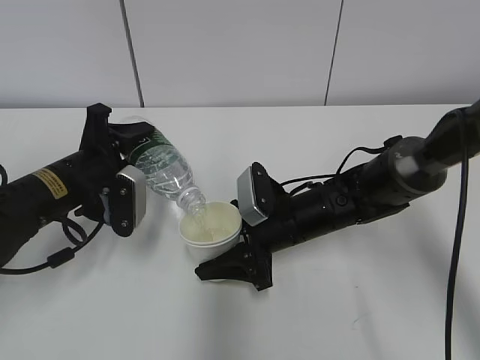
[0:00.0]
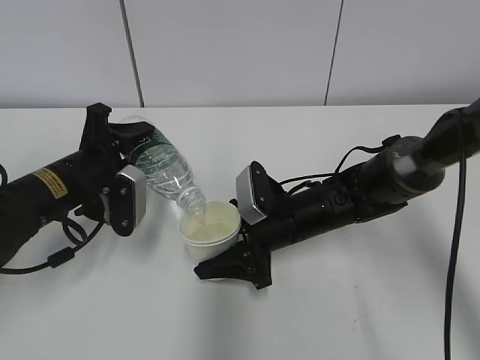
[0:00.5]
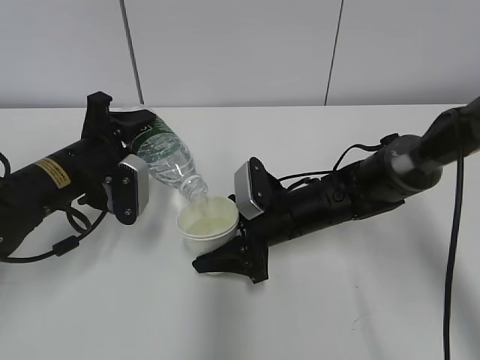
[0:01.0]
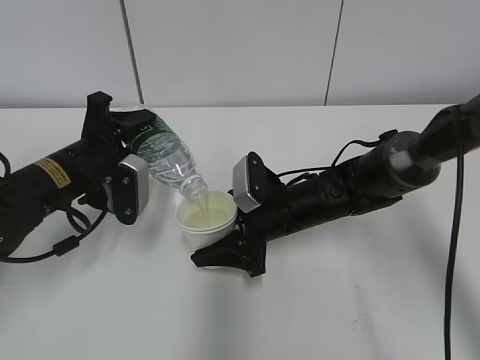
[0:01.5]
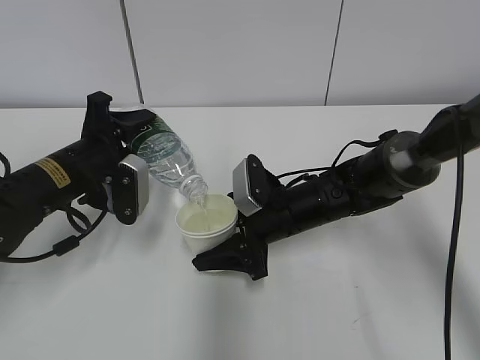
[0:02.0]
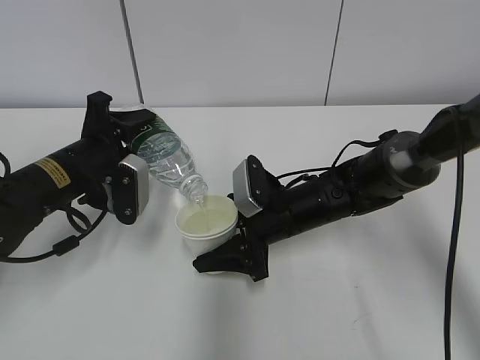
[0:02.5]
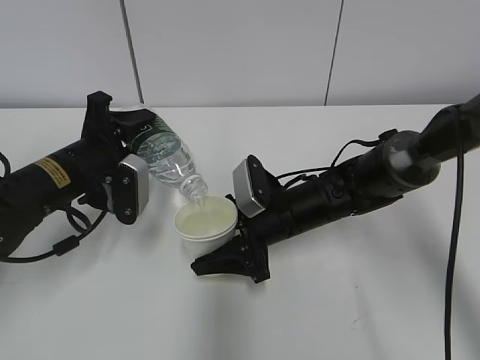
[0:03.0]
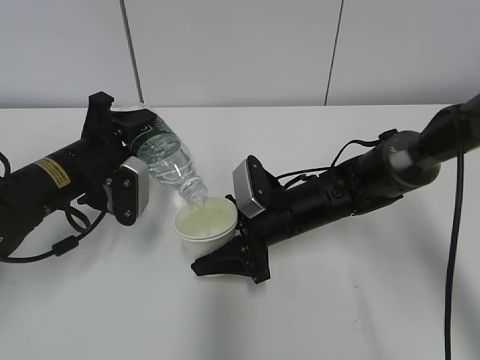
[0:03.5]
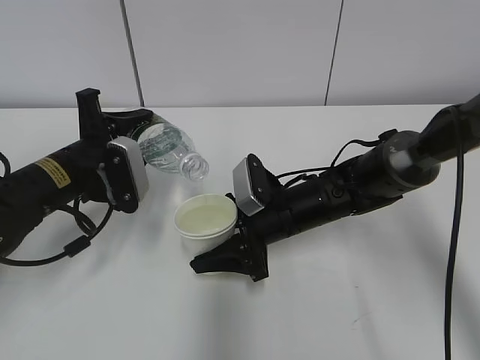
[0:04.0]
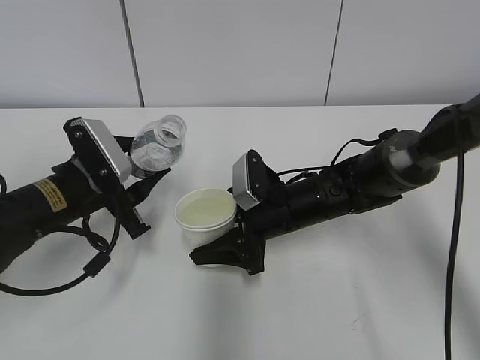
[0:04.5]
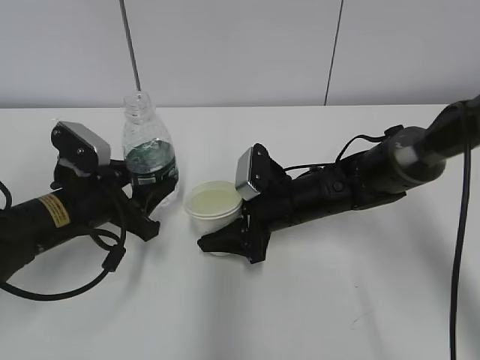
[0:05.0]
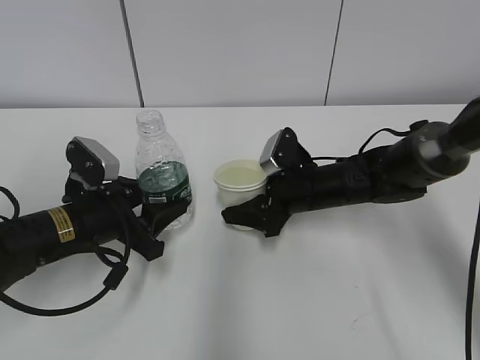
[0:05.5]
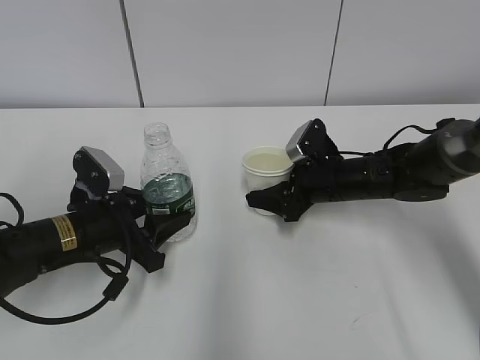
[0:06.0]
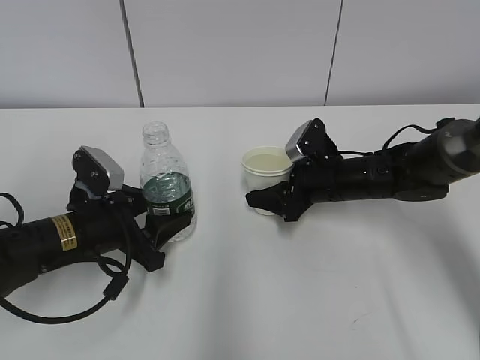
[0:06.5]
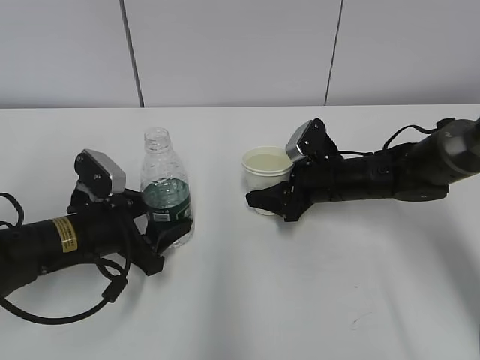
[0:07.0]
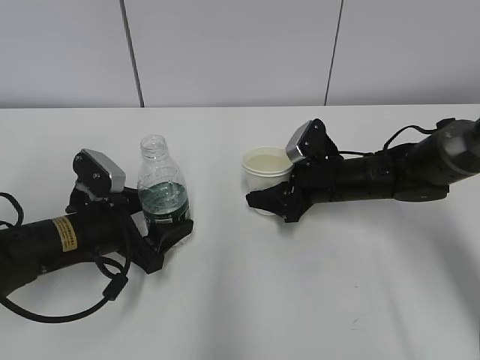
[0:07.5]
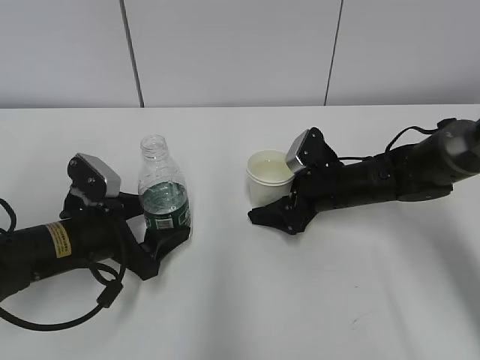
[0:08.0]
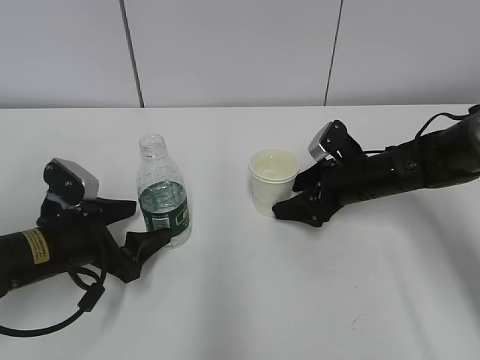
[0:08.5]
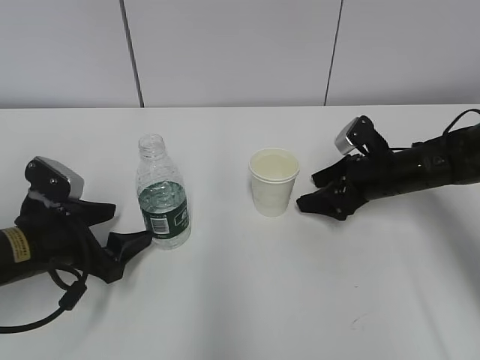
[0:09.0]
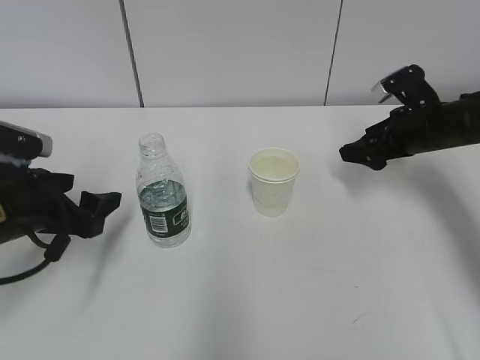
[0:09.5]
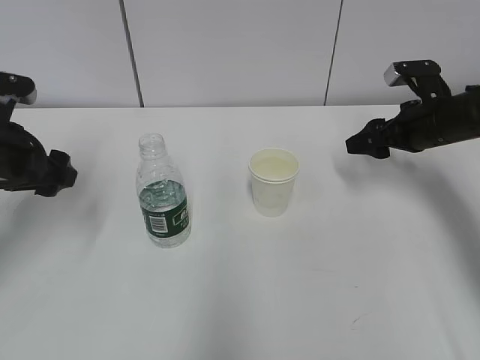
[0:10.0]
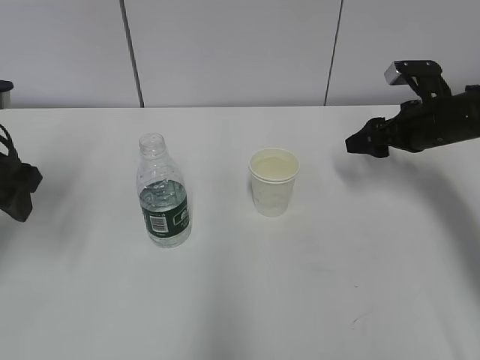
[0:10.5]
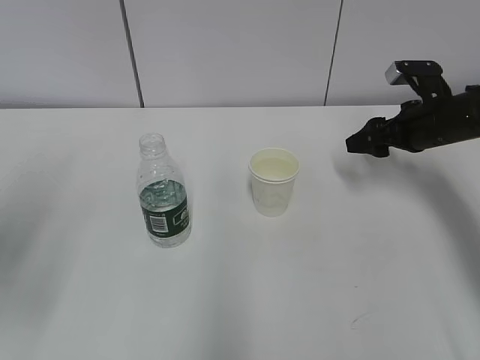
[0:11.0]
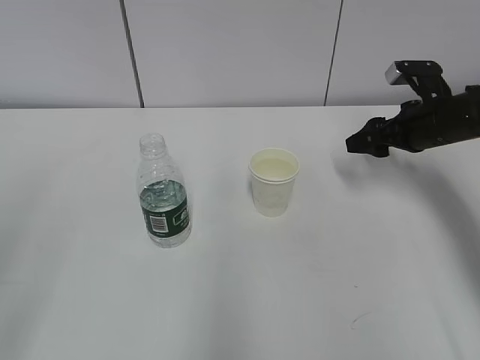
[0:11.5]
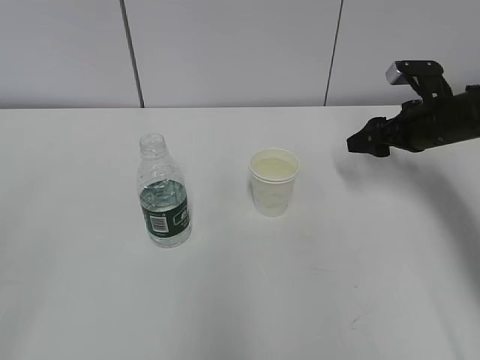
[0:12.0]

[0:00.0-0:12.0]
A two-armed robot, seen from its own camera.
0:00.0 to 0:04.0: The grippers move only a little.
0:04.0 to 0:06.0: The right gripper moves to the right and forward, about 10 cm. The left gripper is displaced downward by approximately 5 cm.
0:06.0 to 0:08.0: The left gripper opens its fingers; the right gripper opens.
0:08.0 to 0:10.0: The left gripper is displaced upward and to the left by about 15 cm, while the right gripper shifts approximately 15 cm to the right and upward, and closes up.
0:10.0 to 0:12.0: The left gripper is displaced backward by approximately 30 cm.

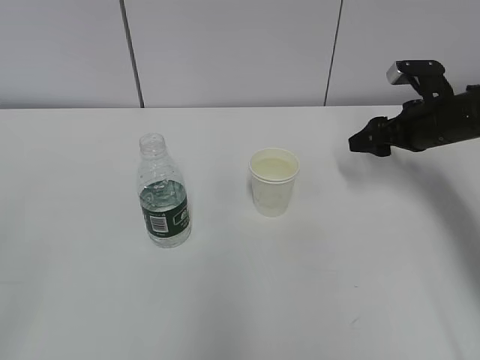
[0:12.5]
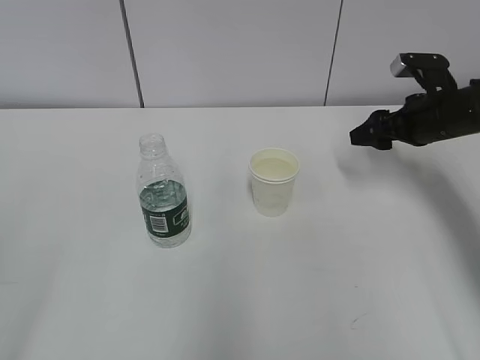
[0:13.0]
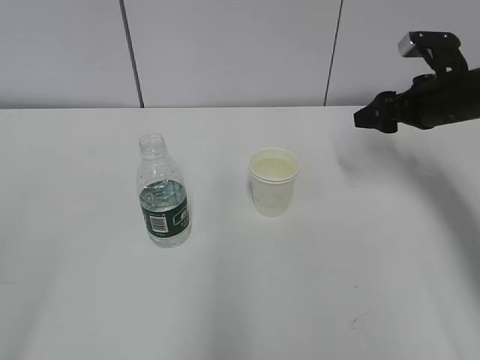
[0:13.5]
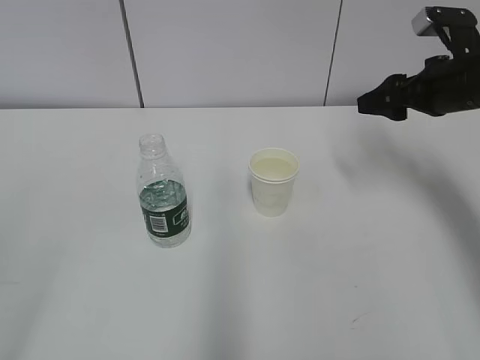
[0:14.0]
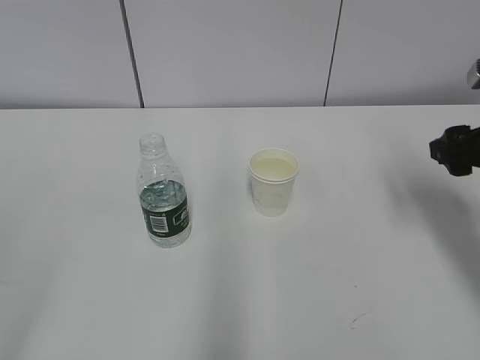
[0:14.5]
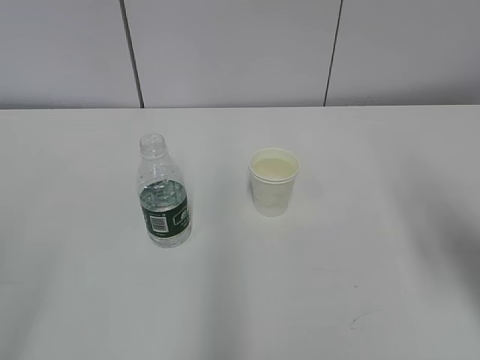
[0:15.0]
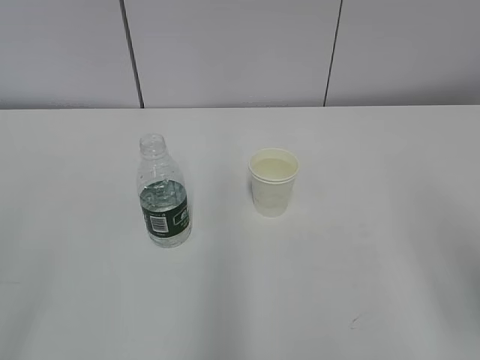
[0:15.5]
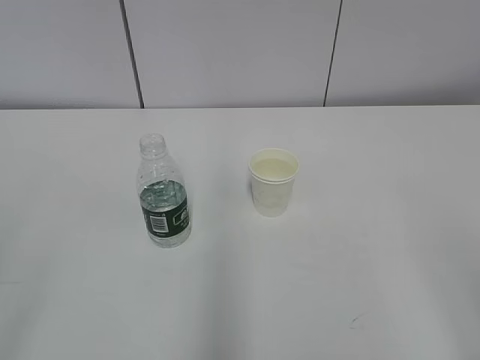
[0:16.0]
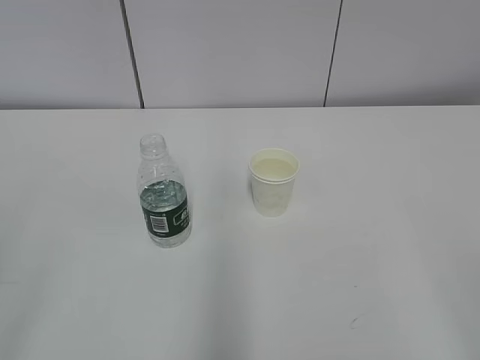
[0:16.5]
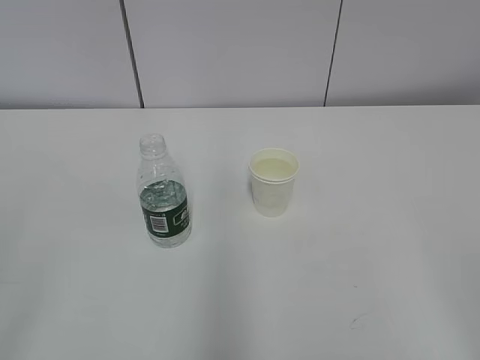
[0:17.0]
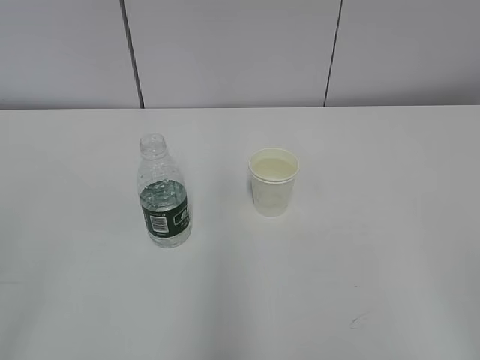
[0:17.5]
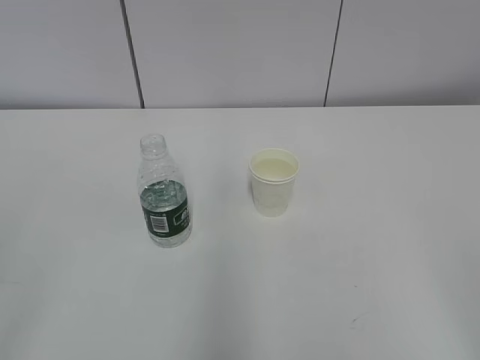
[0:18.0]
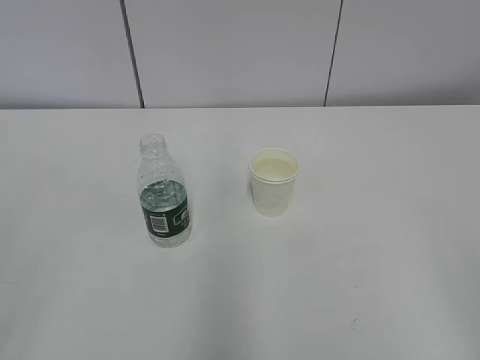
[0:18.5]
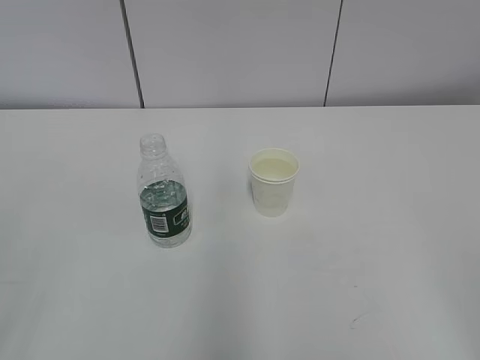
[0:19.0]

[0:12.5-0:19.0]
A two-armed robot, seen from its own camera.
0:12.5 to 0:14.5: The right gripper shifts about 15 cm backward and upward.
0:14.5 to 0:17.0: The right gripper is displaced backward by roughly 30 cm.
0:17.0 to 0:19.0: Neither gripper changes place.
